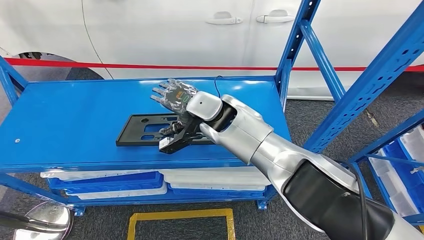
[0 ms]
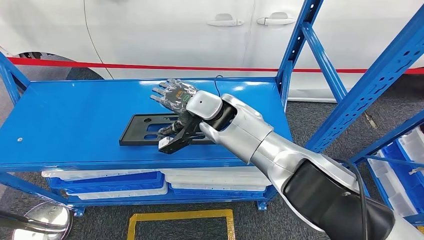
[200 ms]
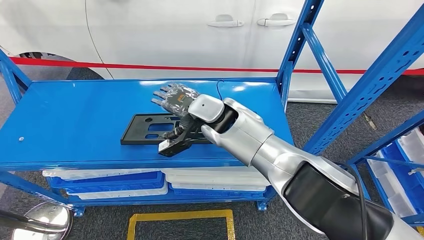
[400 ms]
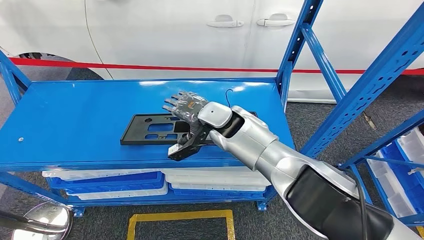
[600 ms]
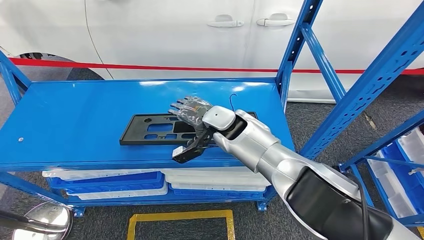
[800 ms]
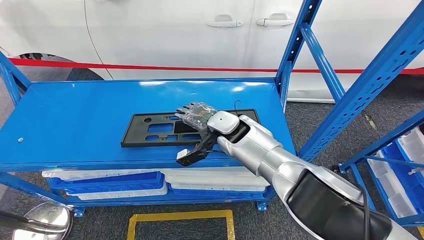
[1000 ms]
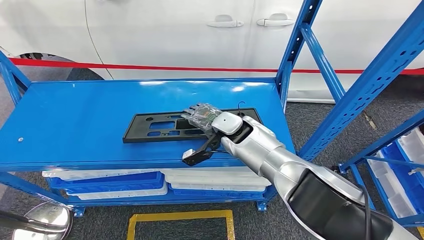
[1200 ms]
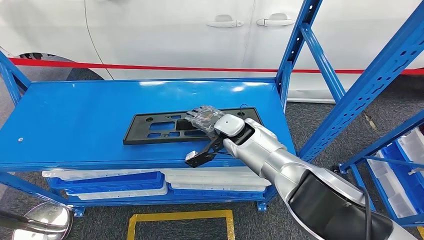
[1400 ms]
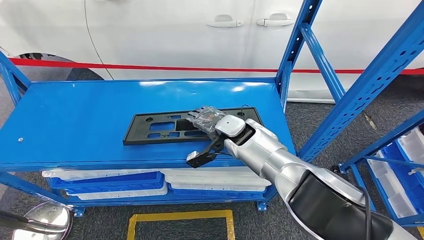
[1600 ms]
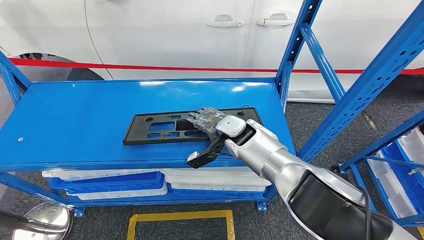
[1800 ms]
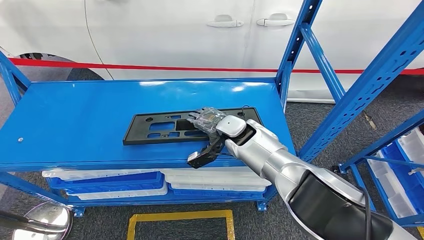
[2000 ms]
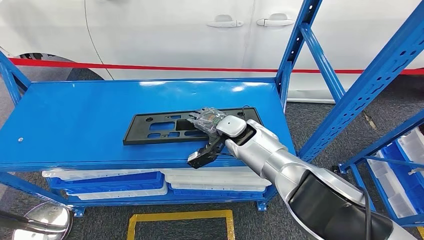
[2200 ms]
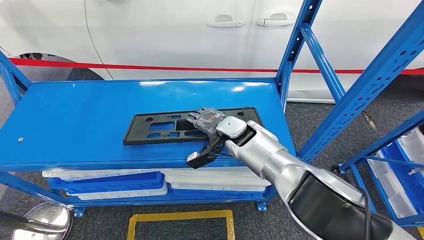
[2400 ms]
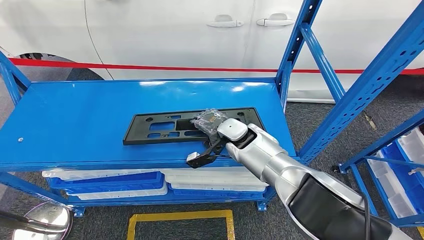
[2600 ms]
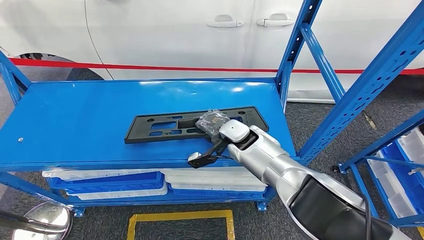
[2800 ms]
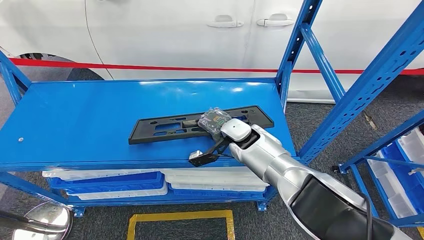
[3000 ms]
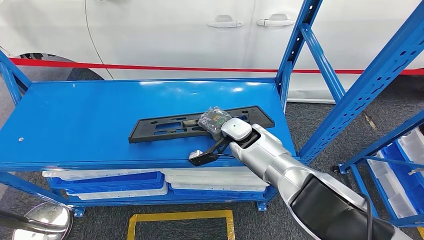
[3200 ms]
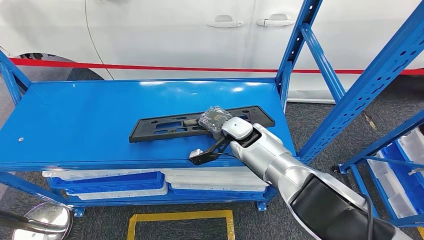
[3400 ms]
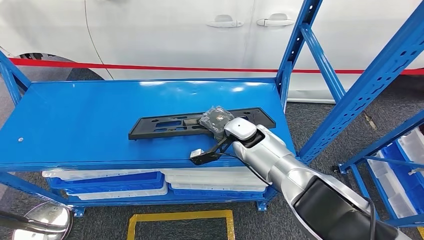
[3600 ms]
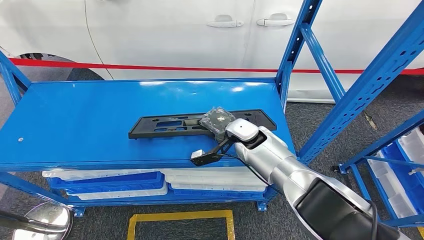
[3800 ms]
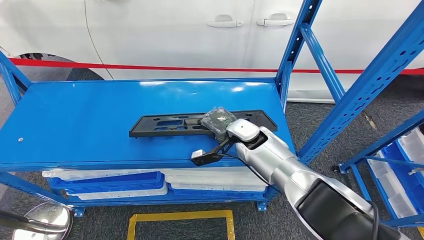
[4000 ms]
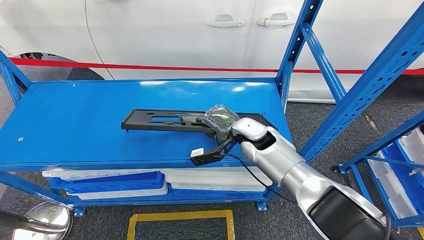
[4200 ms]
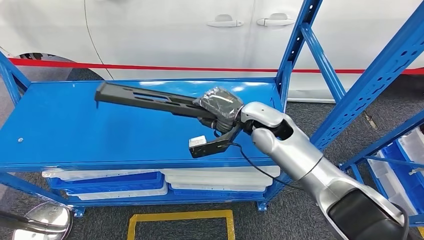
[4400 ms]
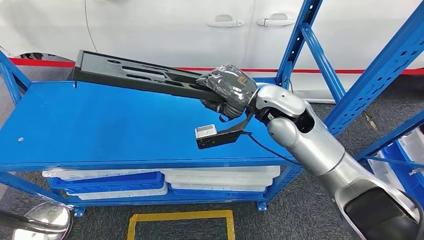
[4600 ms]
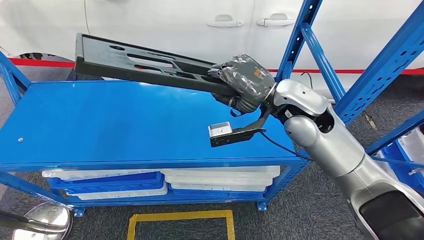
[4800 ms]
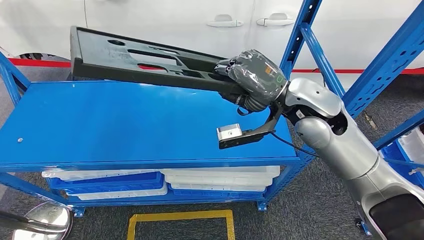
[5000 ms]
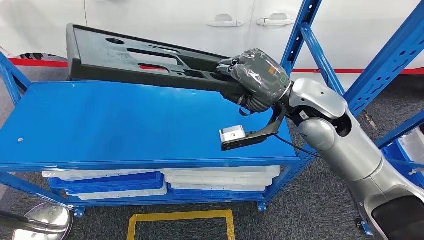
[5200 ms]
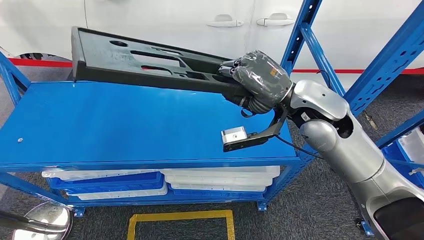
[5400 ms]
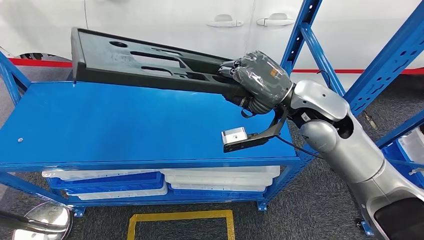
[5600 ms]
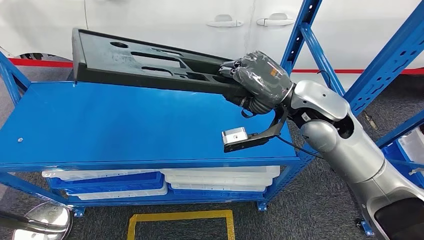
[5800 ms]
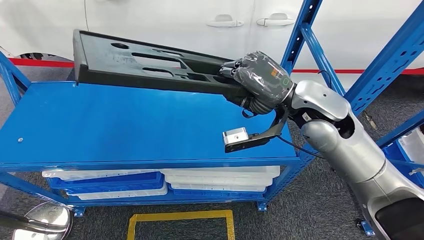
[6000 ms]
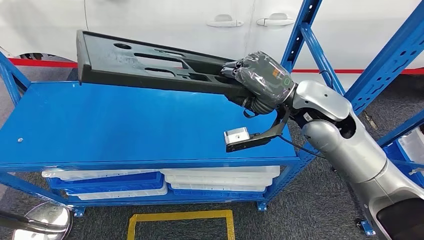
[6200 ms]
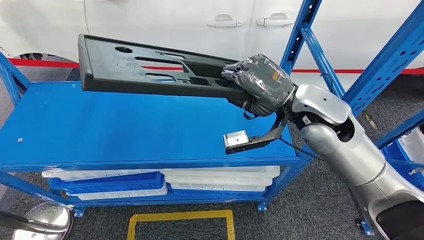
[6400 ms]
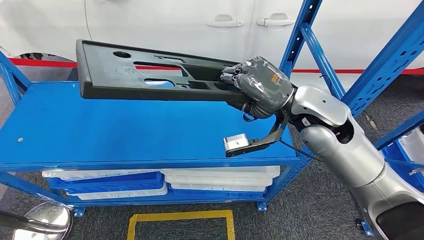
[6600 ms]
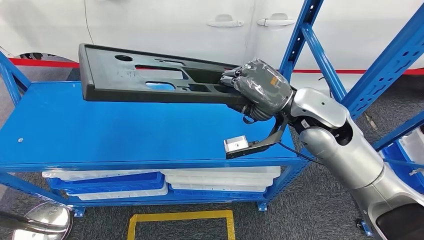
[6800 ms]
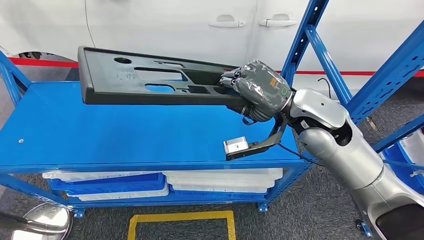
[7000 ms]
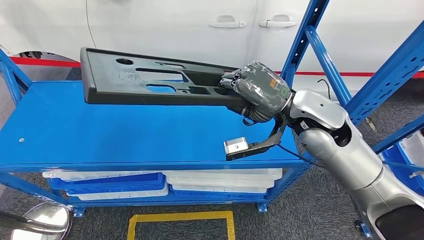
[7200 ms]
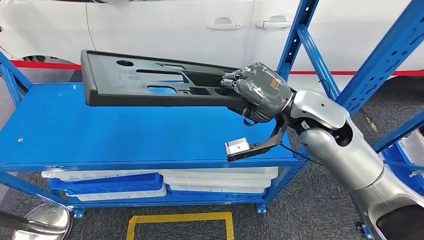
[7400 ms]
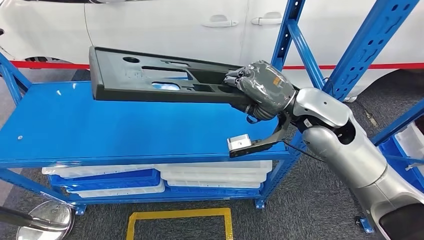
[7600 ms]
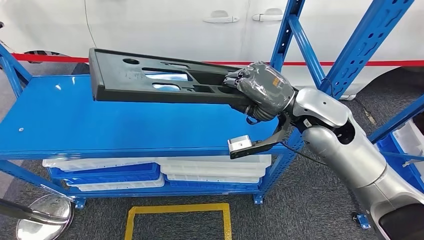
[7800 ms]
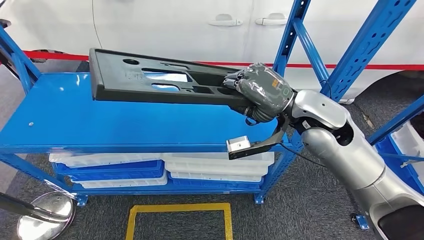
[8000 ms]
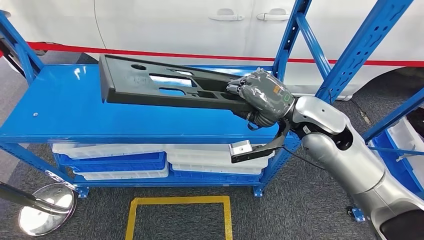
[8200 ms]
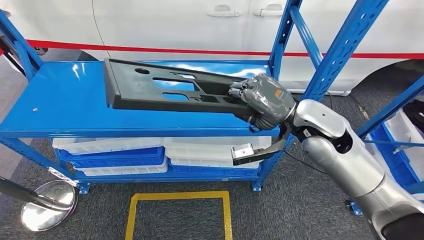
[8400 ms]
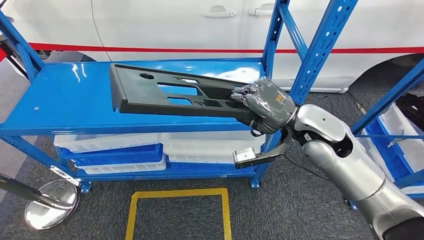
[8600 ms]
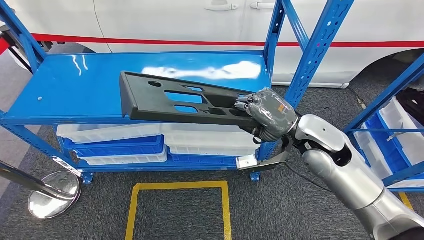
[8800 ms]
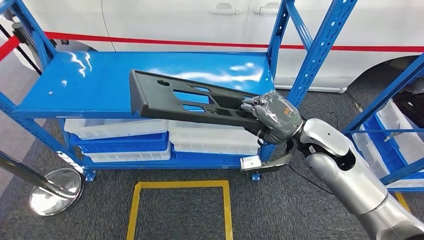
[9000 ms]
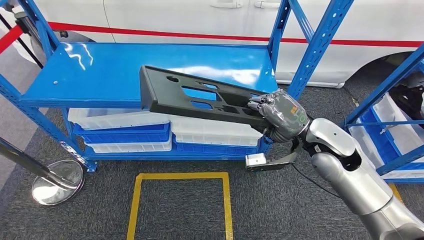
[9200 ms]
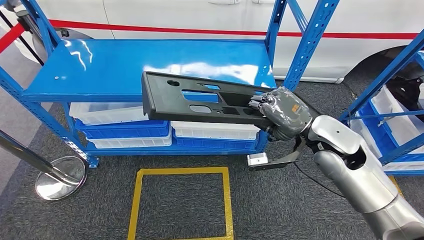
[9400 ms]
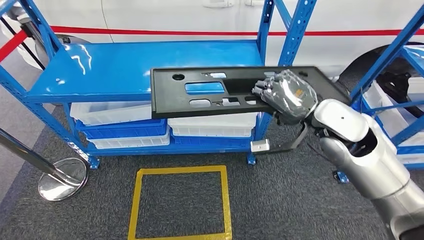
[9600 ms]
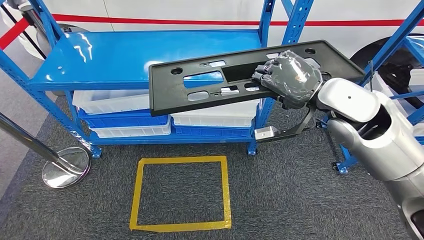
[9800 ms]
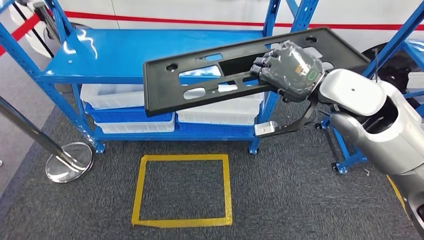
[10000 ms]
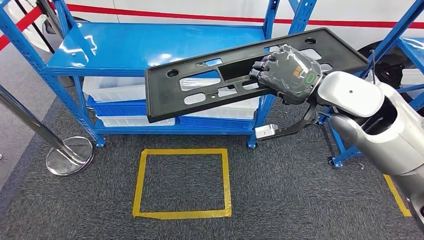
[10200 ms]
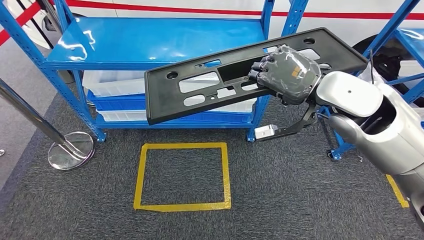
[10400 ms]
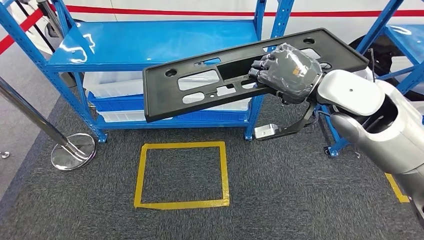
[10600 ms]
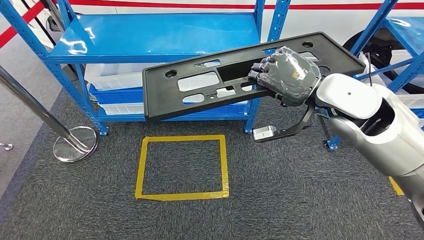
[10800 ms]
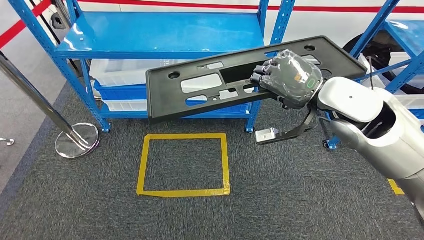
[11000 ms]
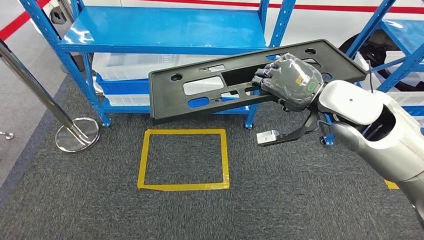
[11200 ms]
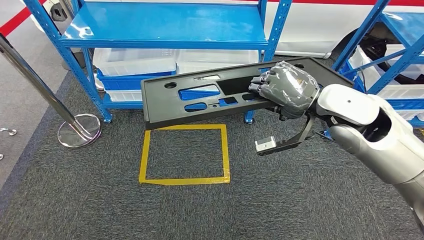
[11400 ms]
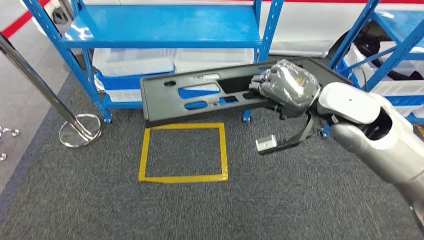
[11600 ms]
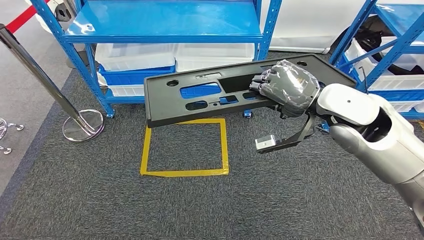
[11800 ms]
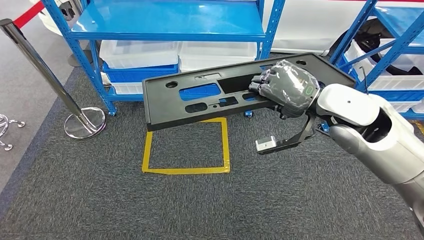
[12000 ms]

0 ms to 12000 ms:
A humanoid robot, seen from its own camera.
Step, 0 ms to 4600 ms: Pick up the large material from the shelf.
0 ms to 1600 ms: The right hand heads downward and to the right, covering roughly 10 cm.
1600 ms to 3000 ms: There are only small adjustments of the hands.
3000 ms to 4400 ms: The right hand travels upward by some 10 cm.

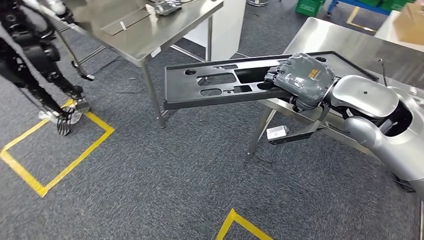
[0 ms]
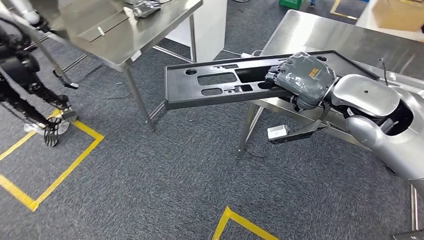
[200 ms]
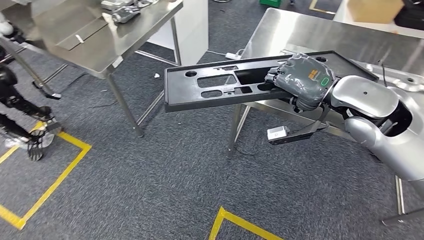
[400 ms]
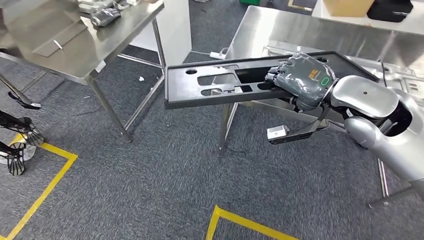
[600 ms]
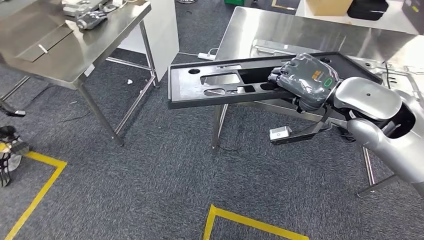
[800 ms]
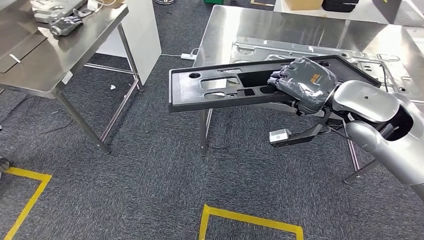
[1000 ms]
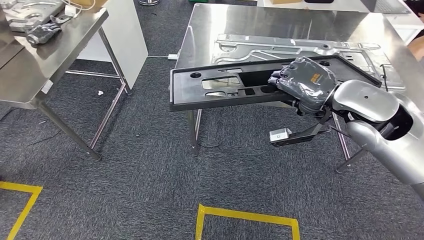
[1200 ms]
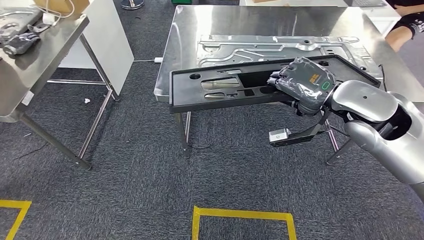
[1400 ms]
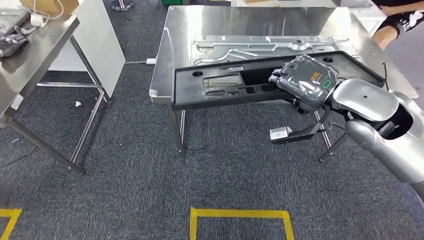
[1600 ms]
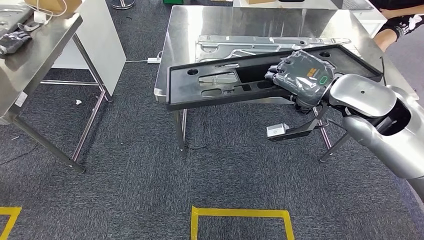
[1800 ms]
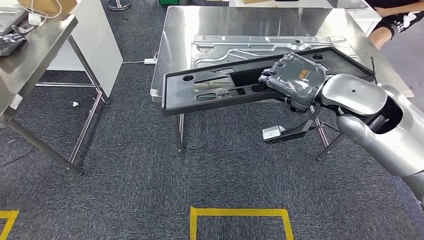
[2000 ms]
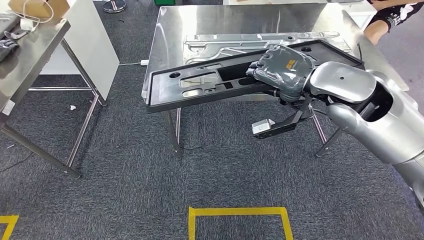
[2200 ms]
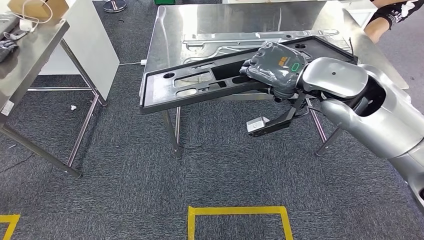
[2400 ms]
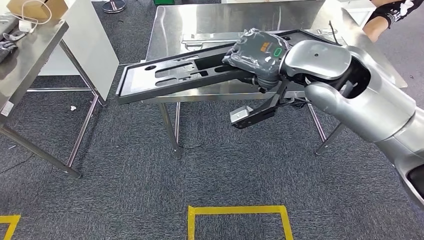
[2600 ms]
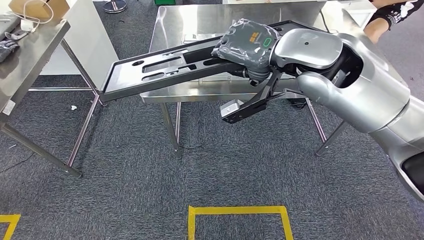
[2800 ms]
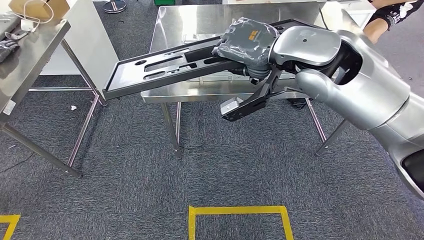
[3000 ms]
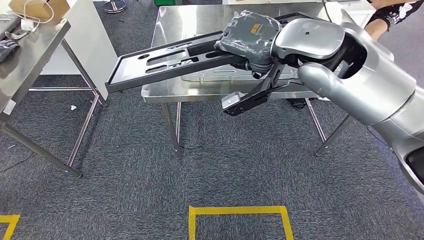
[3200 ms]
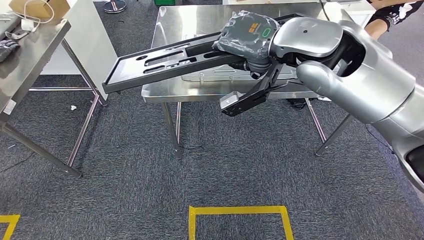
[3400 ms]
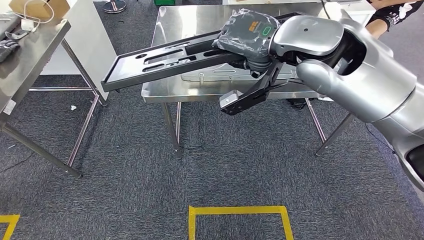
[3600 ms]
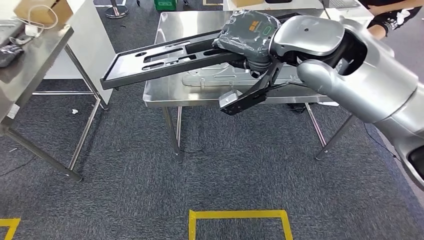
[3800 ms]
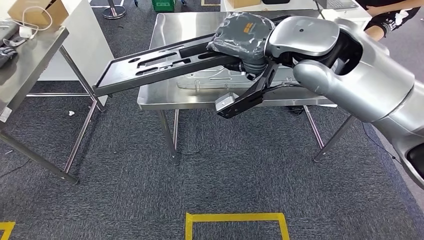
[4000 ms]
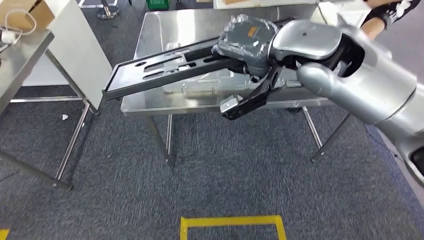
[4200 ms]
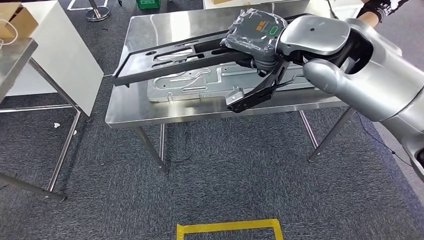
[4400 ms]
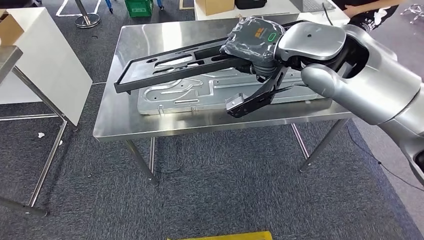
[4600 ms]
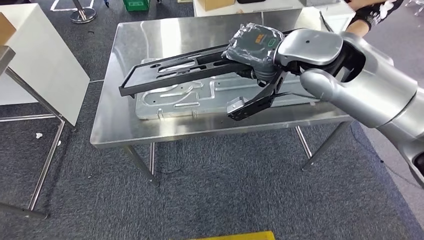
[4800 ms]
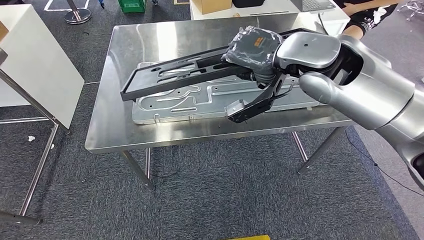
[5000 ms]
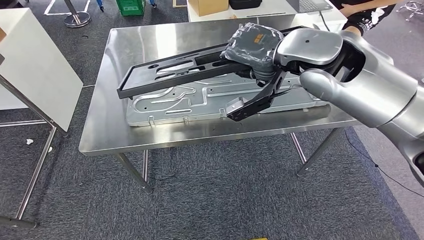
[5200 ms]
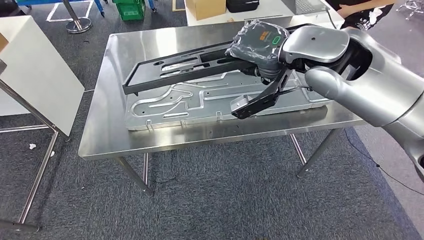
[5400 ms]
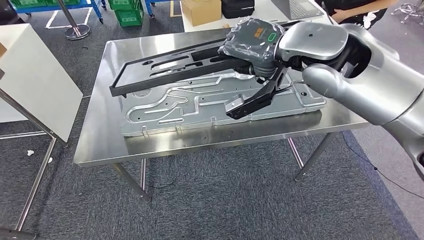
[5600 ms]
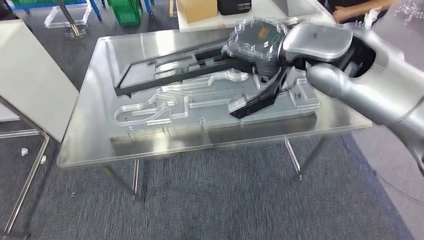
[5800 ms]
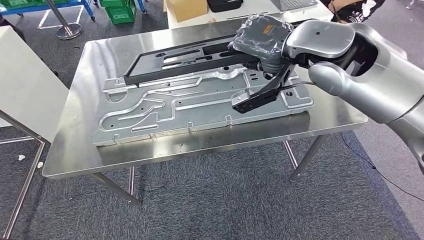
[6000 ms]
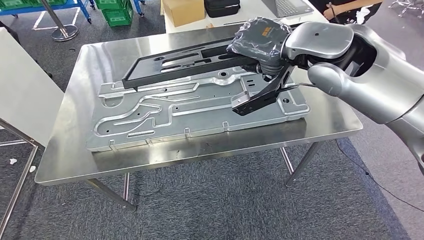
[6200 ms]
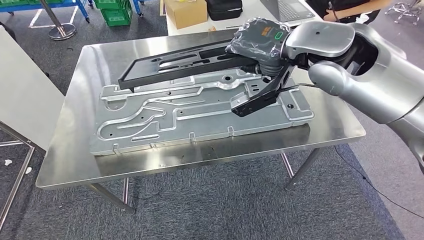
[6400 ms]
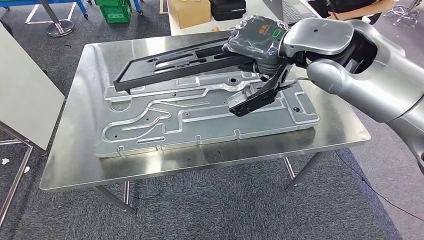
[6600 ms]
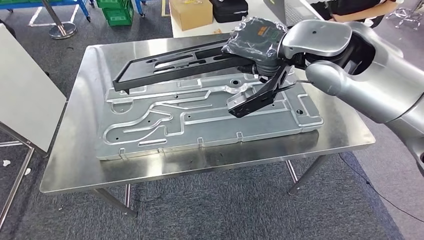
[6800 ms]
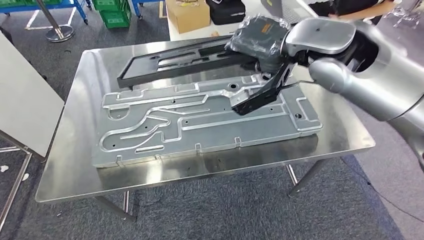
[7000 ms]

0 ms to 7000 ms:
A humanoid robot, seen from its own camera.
Step, 0 ms to 2800 ms: Move the large material to the front of the workbench.
